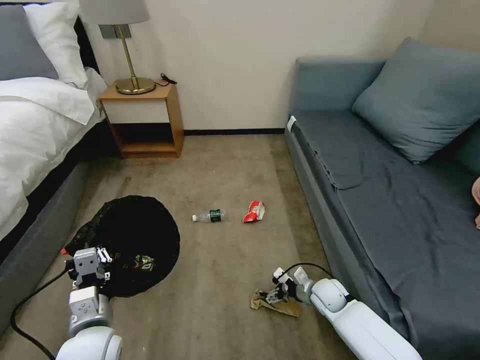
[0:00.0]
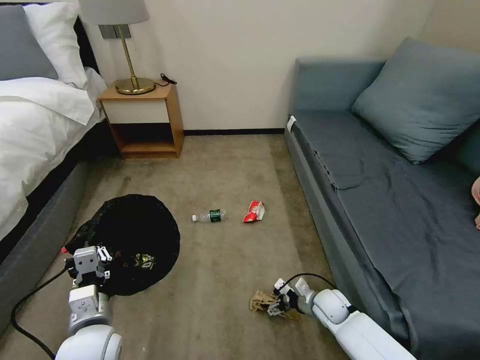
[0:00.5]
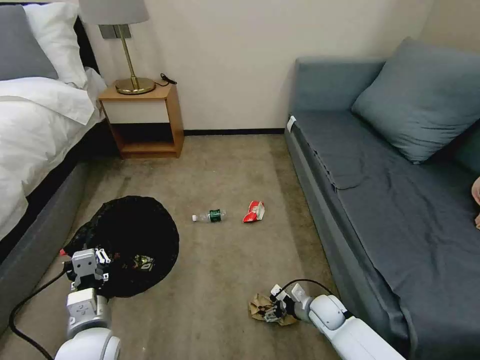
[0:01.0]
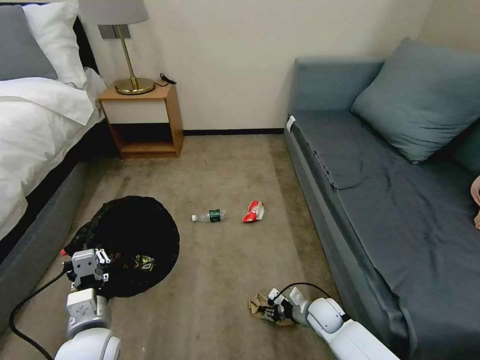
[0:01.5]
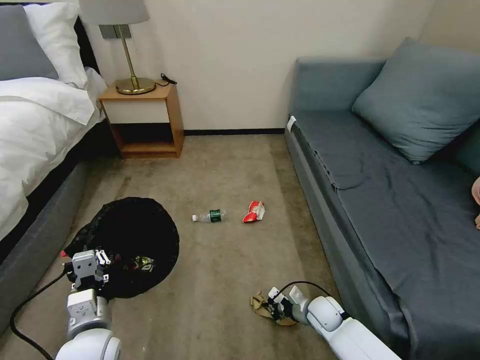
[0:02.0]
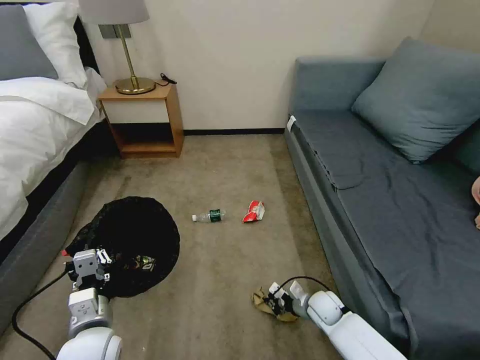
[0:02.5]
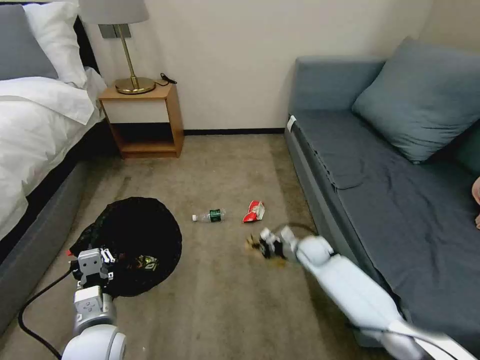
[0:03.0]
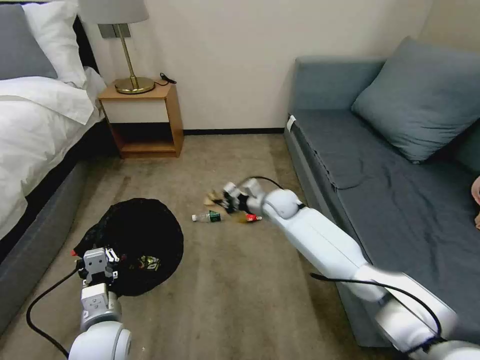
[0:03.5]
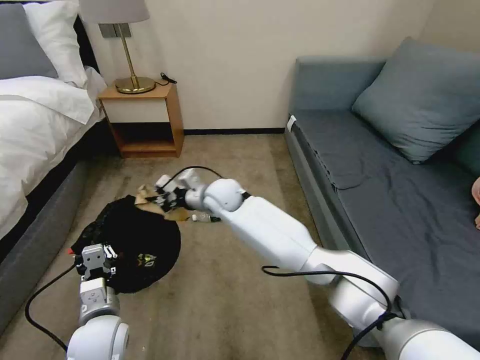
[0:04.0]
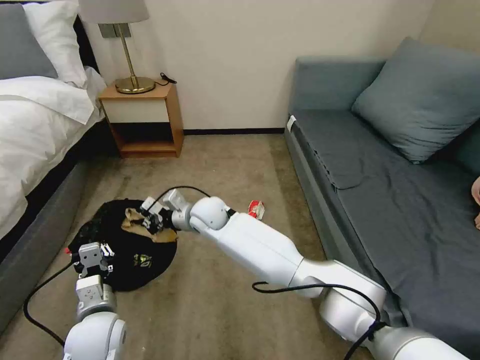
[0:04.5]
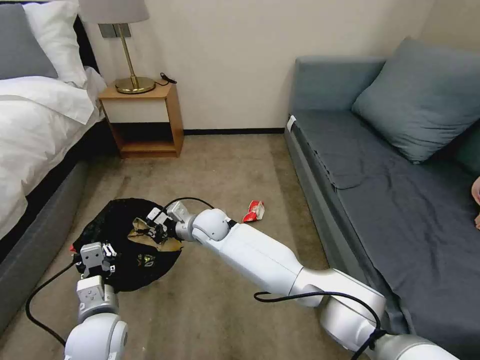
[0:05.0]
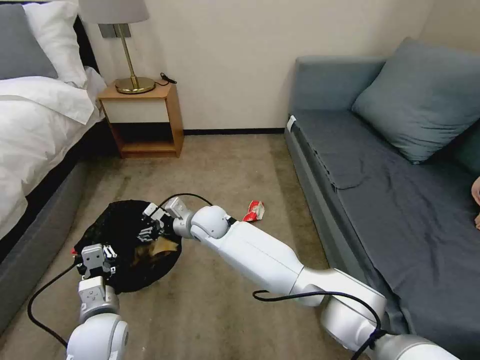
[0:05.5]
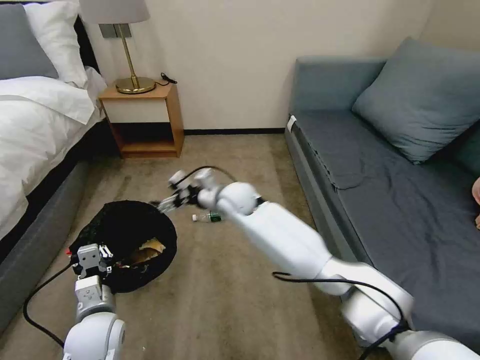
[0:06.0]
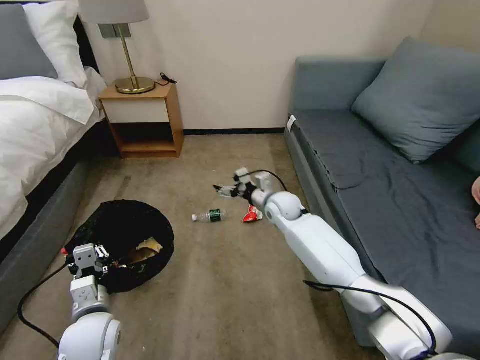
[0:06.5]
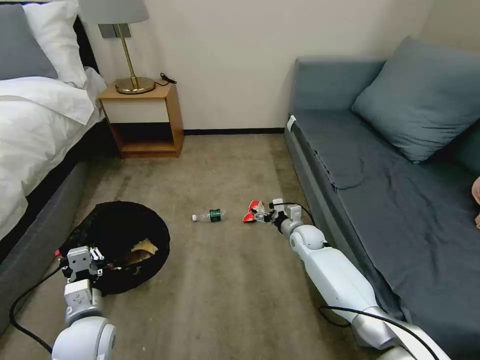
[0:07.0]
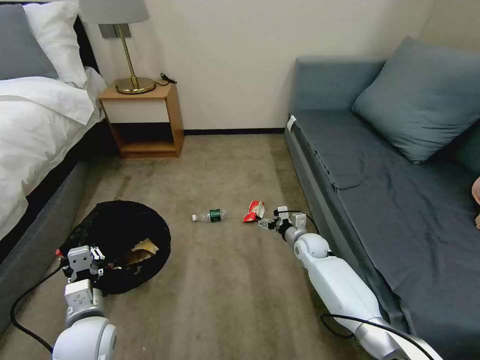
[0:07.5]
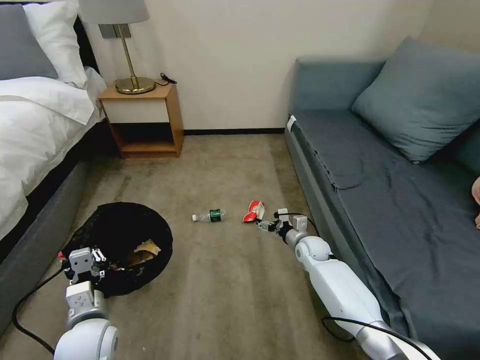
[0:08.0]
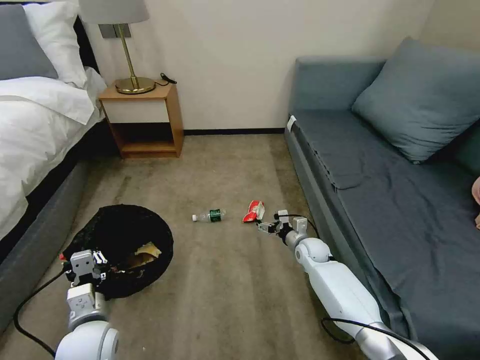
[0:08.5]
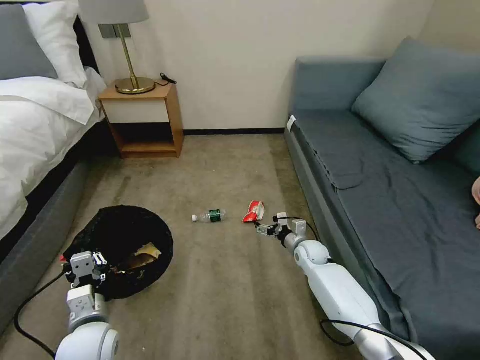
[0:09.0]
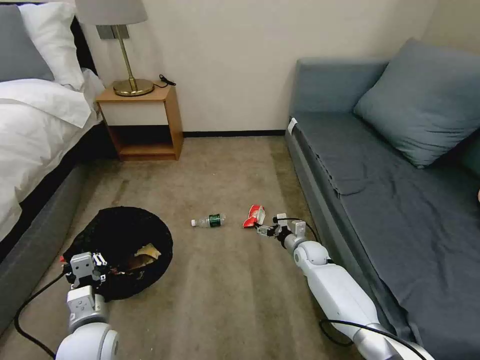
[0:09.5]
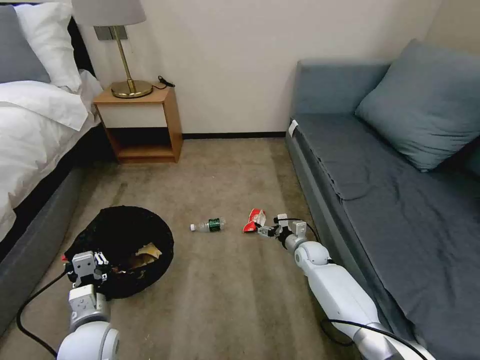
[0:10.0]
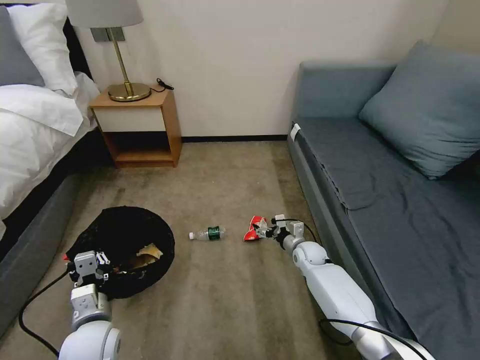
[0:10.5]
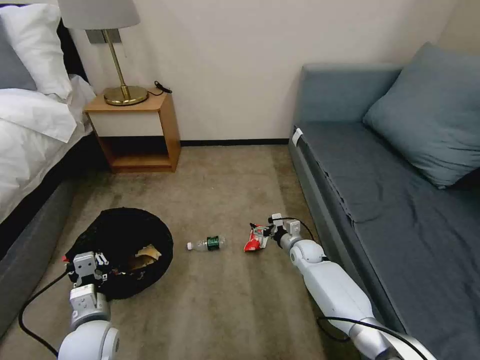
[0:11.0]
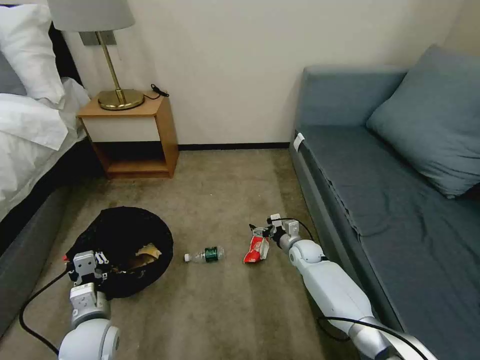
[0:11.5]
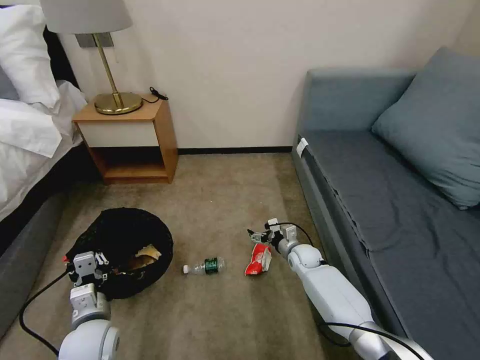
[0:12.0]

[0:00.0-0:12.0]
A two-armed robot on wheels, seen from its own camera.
Task of the whole recording: Pick up the trash bin, then pick up the garbage on the floor and place it into the trash bin.
0:00.0 to 0:02.0: The right gripper changes place by roughly 5 cm, and closes its fingers.
0:02.0 to 0:04.0: The right gripper travels upward, to the left and forward by about 50 cm.
0:04.0 to 0:06.0: The right gripper opens up.
0:06.0 to 0:08.0: The right gripper shifts roughly 30 cm to the right and downward.
0:08.0 to 0:10.0: There are only small adjustments of the grippers.

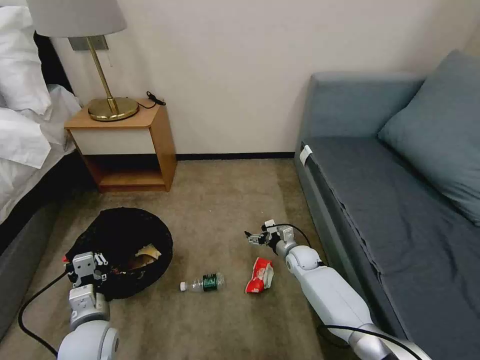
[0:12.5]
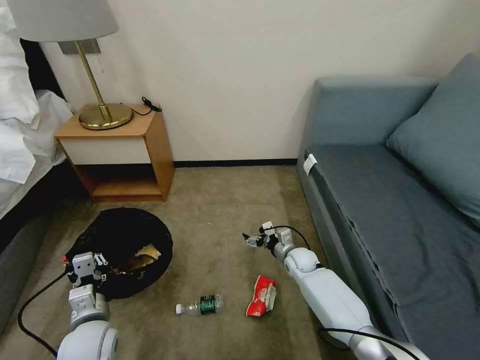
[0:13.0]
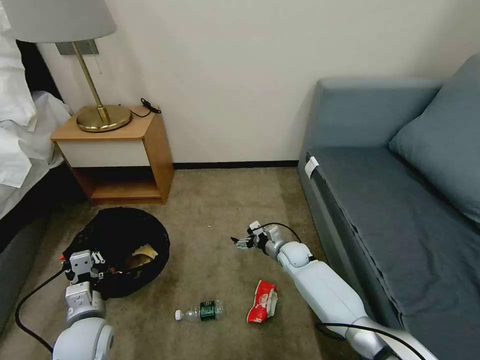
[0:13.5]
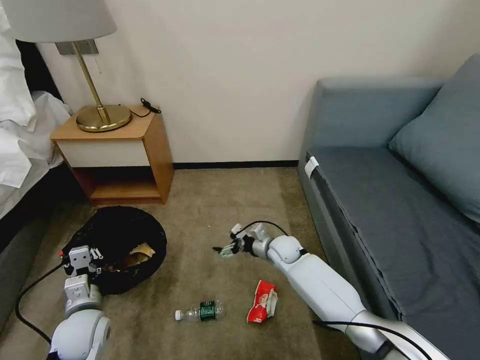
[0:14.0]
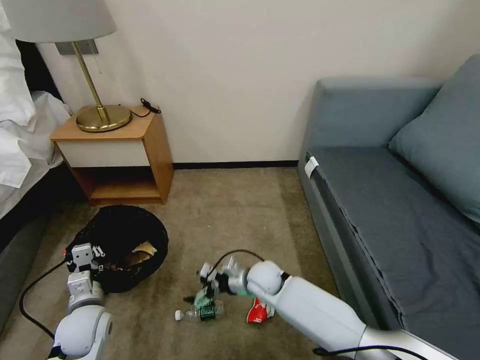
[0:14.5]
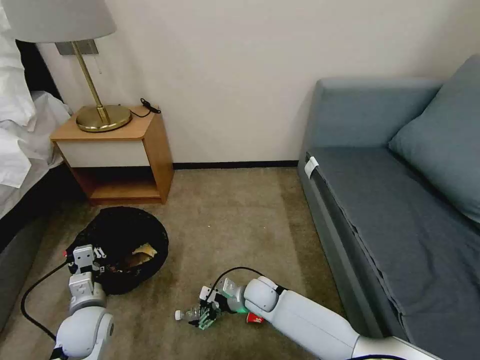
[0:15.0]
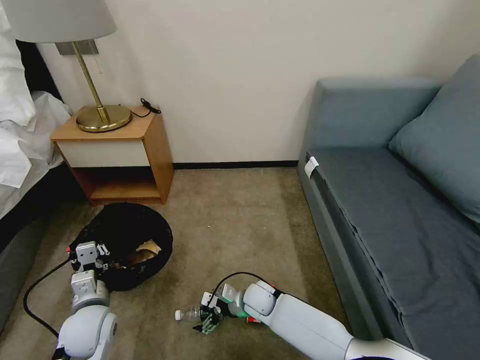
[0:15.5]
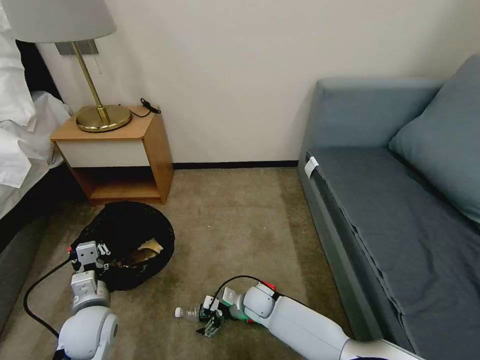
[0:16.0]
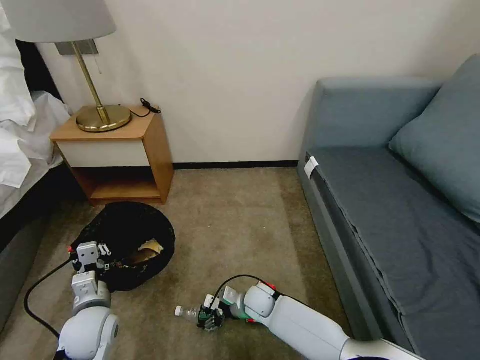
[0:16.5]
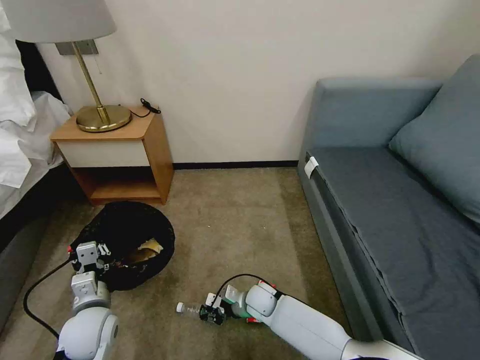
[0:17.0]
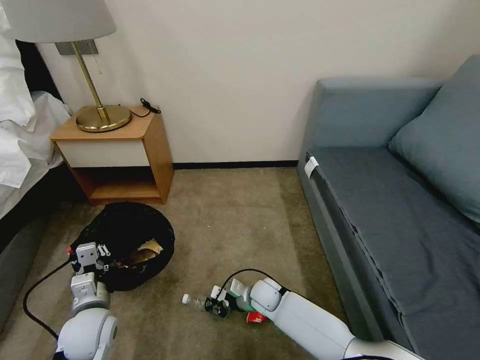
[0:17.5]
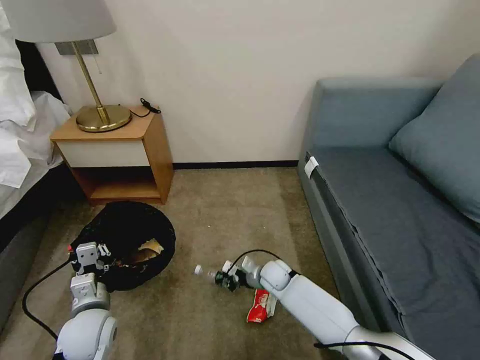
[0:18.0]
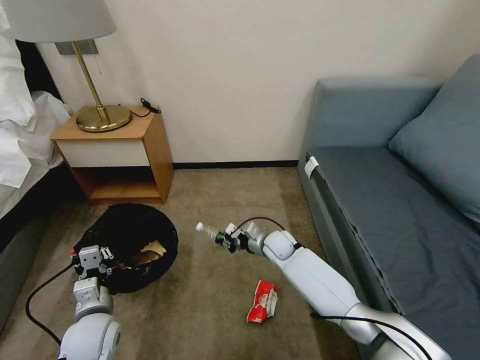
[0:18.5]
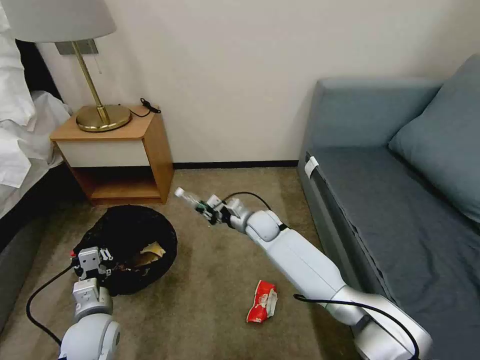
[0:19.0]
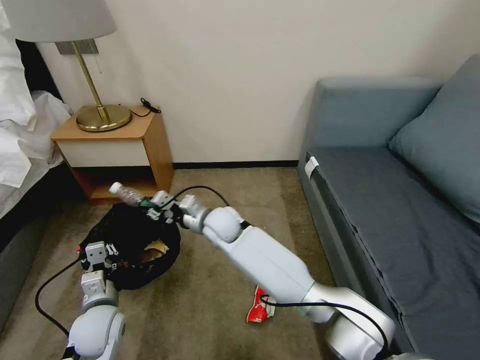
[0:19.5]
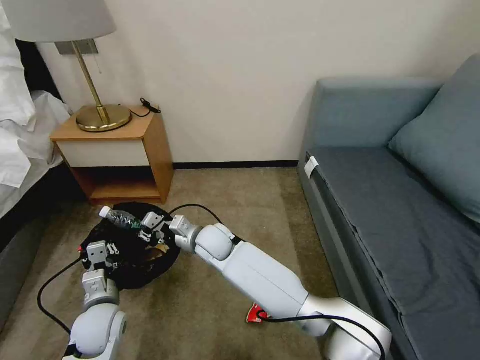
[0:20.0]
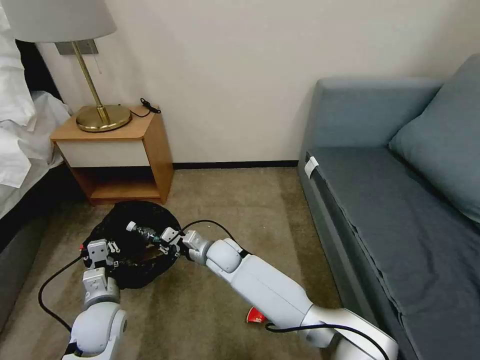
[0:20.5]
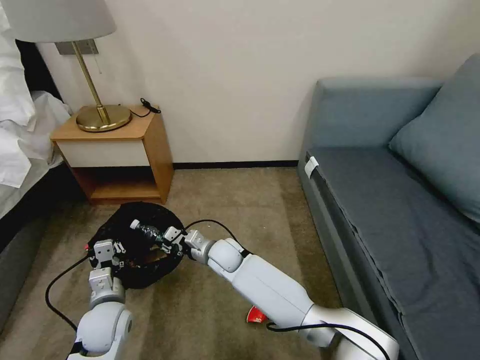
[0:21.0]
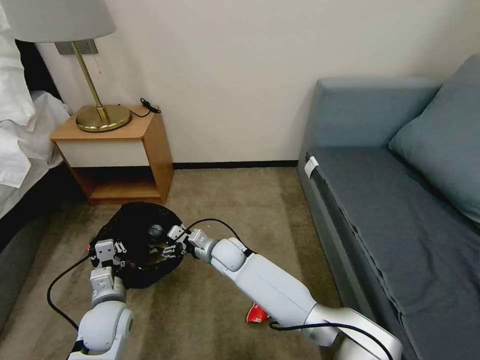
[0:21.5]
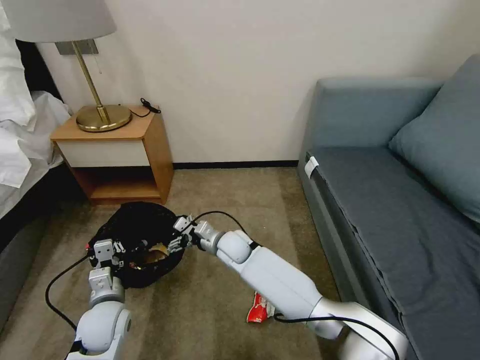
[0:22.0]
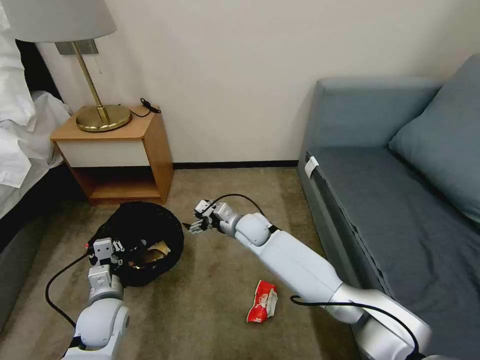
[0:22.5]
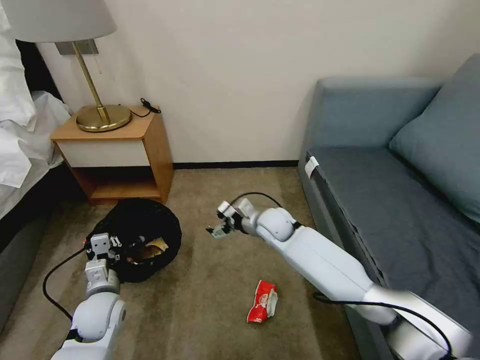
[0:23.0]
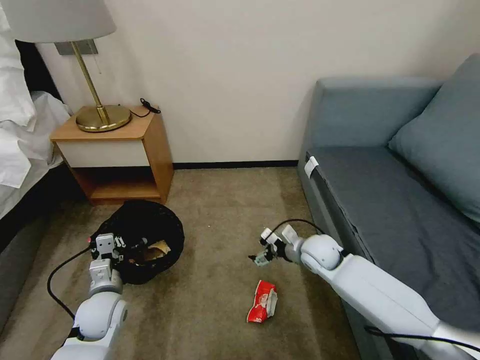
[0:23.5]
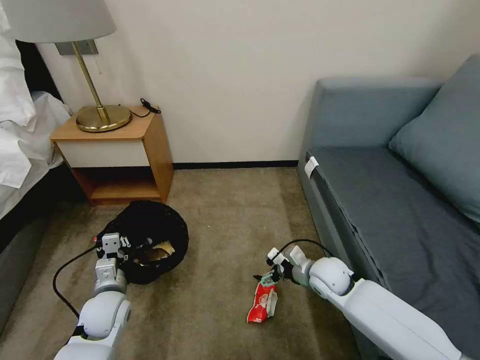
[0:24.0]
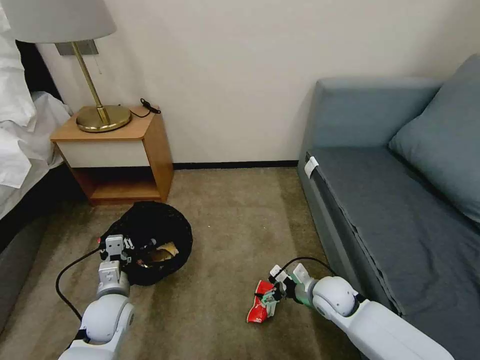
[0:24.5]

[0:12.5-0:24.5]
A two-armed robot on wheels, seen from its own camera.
Task of the whole recording: Pick up the trash bin, then pick up the garbage on the floor and place it into the trash bin.
0:12.5 to 0:14.5: The right gripper shifts about 15 cm to the left and backward.
0:14.5 to 0:16.5: The right gripper heads downward, covering approximately 10 cm.
0:16.5 to 0:18.5: The right gripper shifts approximately 15 cm forward, upward and to the right, and closes up.
0:18.5 to 0:20.5: The right gripper goes some 15 cm to the left.
0:20.5 to 0:22.5: The right gripper moves to the right and forward, roughly 10 cm, and opens up.
0:22.5 to 0:24.5: The right gripper goes roughly 25 cm to the right and backward.

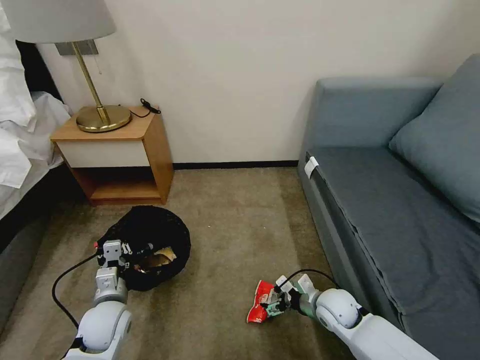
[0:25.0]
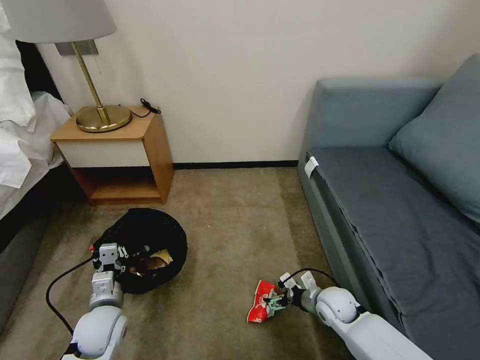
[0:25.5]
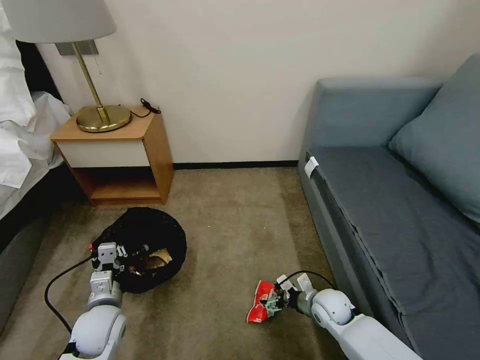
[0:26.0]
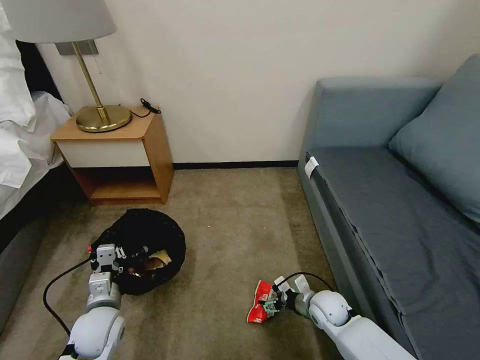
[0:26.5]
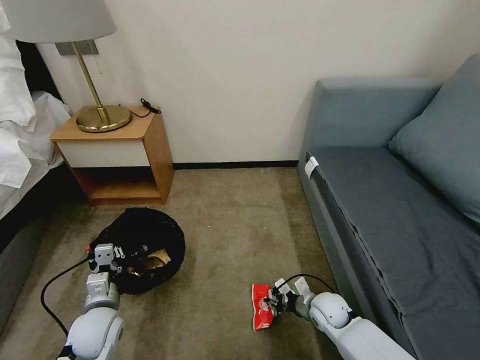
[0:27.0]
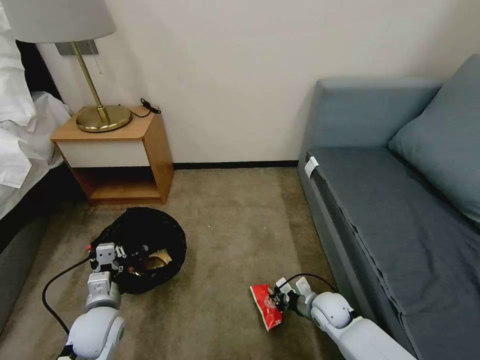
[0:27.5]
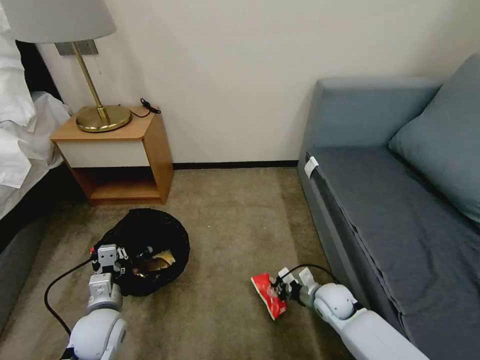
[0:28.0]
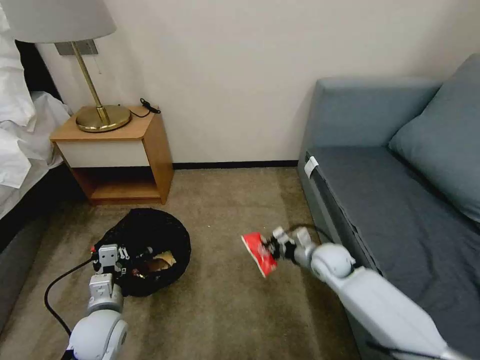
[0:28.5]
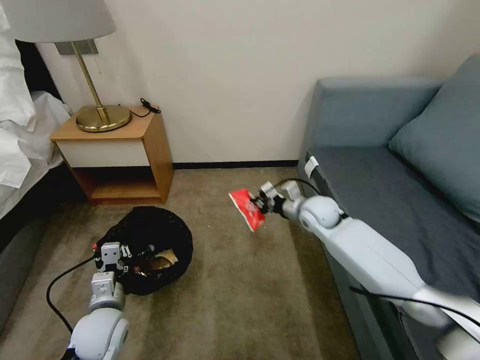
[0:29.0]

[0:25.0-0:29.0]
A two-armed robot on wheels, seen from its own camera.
Task of the whole recording: Pick up the trash bin, then pick up the garbage on the floor and place it into the trash bin.
0:25.0 to 0:27.0: The right gripper closes up.
0:27.0 to 0:29.0: The right gripper travels upward and forward by about 25 cm, and closes its fingers.
